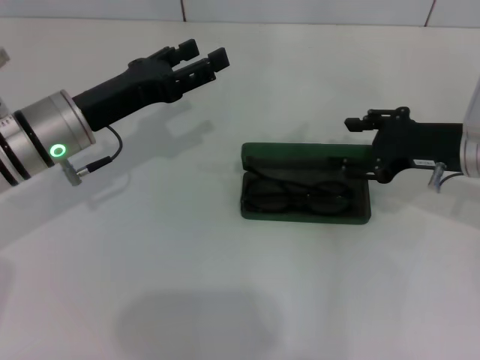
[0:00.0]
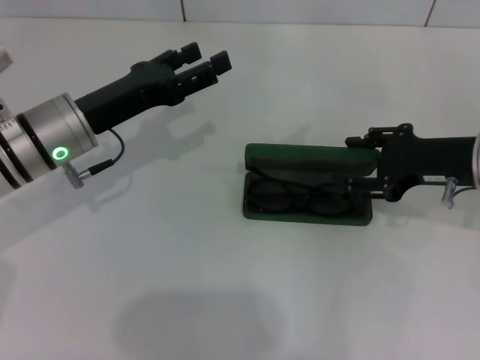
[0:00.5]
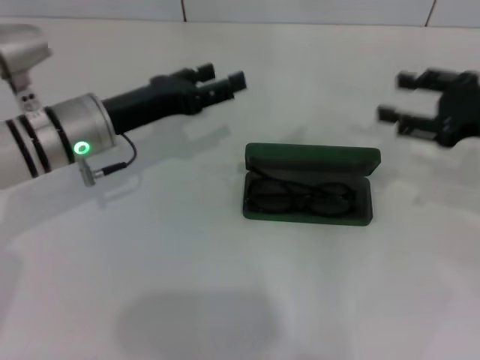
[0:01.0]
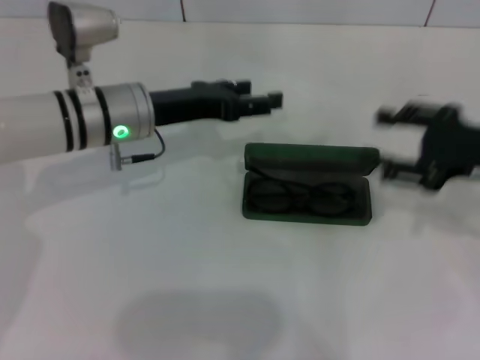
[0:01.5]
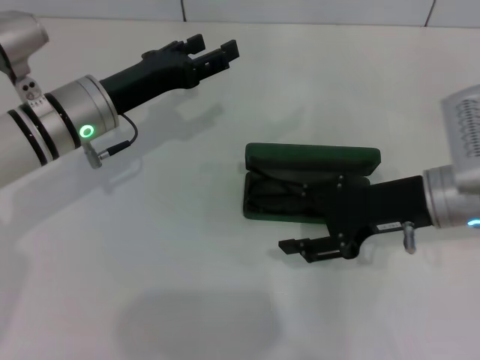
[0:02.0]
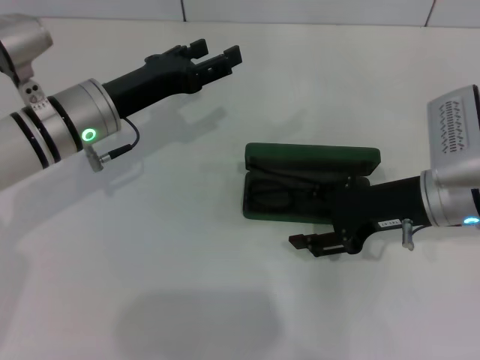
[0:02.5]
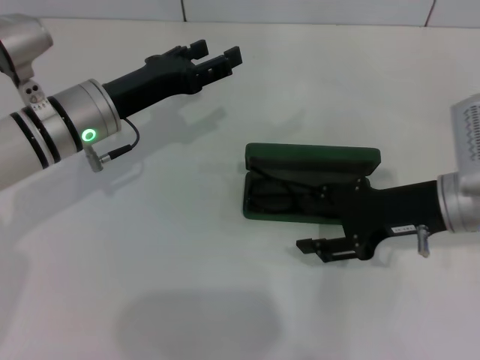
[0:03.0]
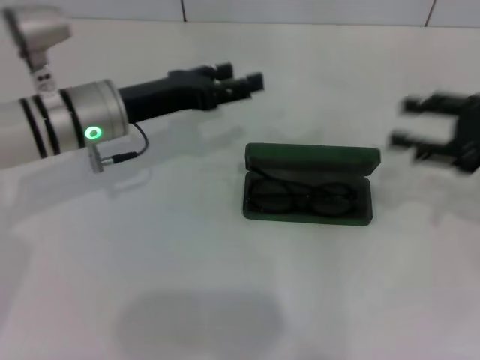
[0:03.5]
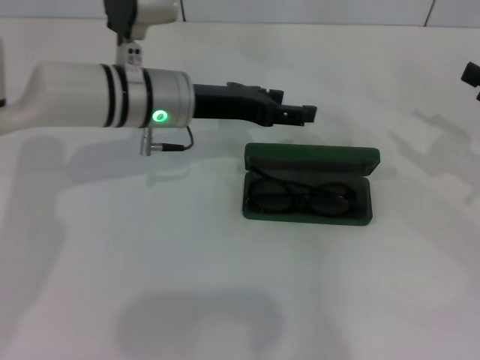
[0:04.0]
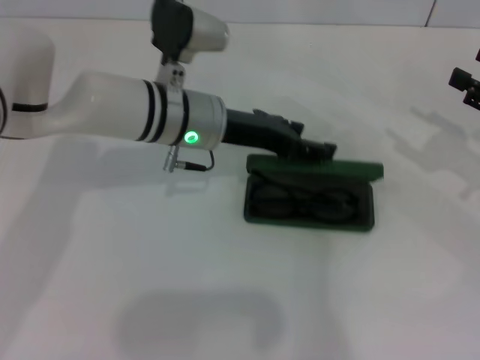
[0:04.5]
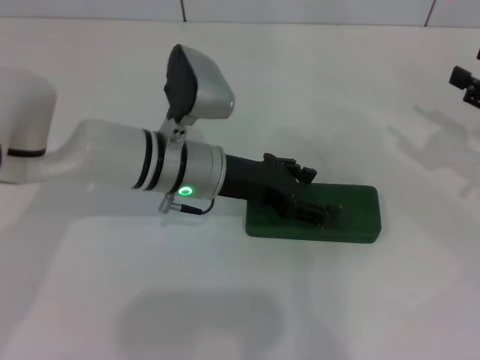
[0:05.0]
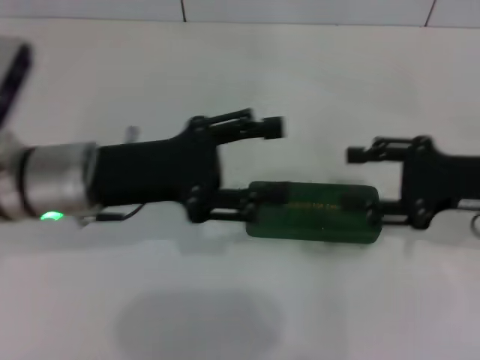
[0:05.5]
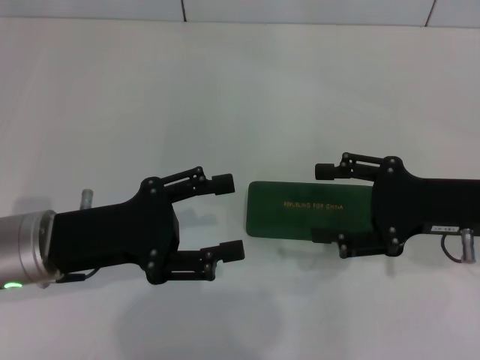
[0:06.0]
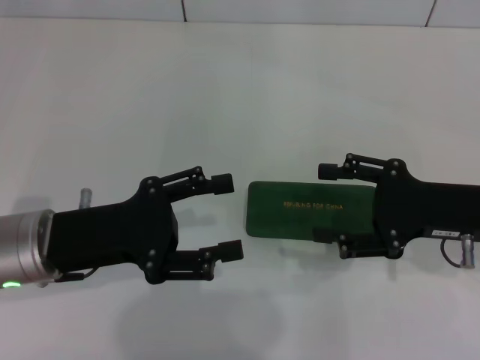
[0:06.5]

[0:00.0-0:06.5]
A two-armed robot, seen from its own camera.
Step, 0:01.0 to 0:04.5: Close the glasses case with your left hand.
0:02.0 to 0:04.5: Both grippers travel together to the right, approximately 15 cm.
0:04.5 to 0:06.5: The right gripper heads to the left, covering about 10 cm. Meanwhile the left gripper shifts approximately 20 cm backward and to the left.
